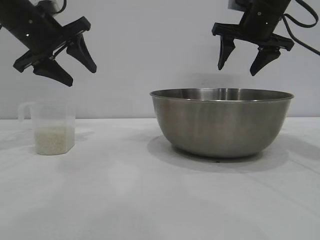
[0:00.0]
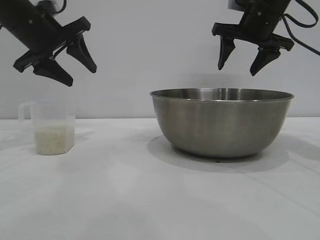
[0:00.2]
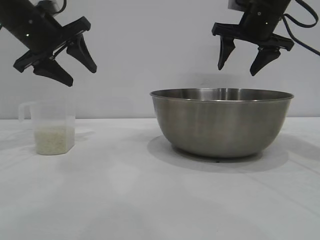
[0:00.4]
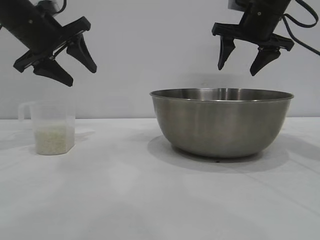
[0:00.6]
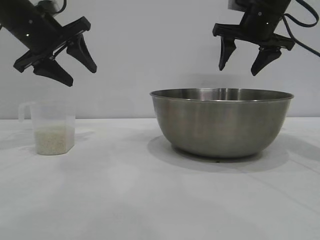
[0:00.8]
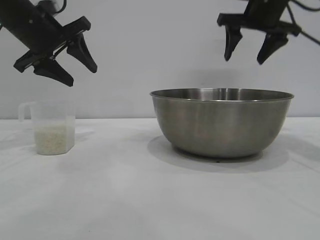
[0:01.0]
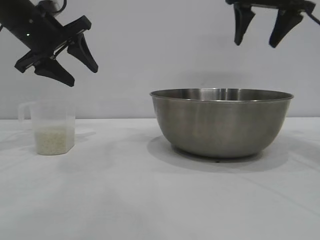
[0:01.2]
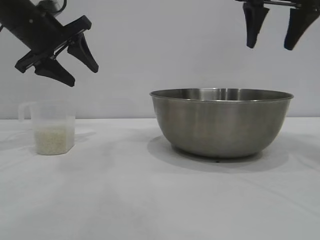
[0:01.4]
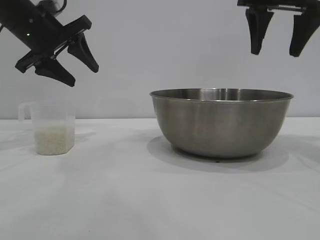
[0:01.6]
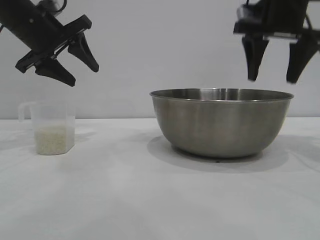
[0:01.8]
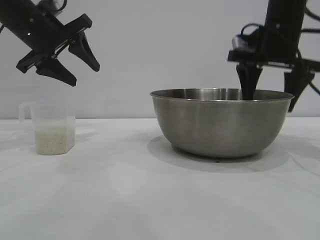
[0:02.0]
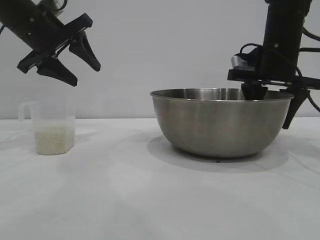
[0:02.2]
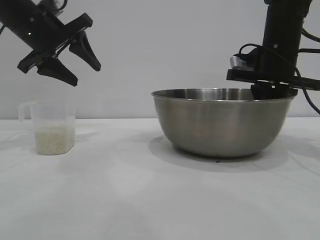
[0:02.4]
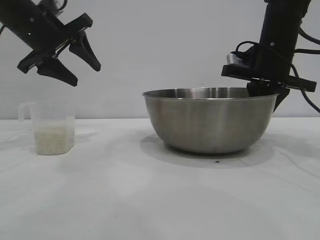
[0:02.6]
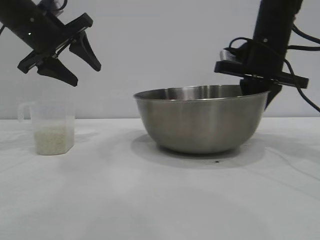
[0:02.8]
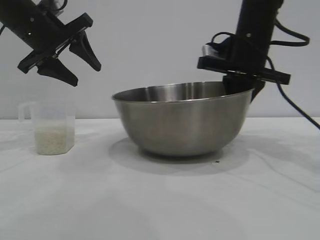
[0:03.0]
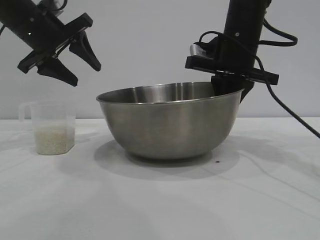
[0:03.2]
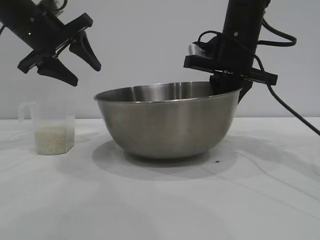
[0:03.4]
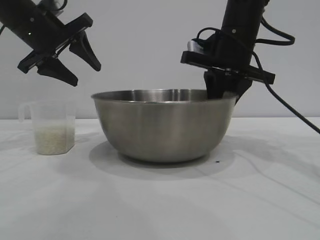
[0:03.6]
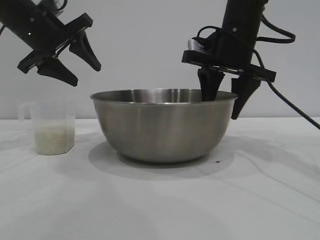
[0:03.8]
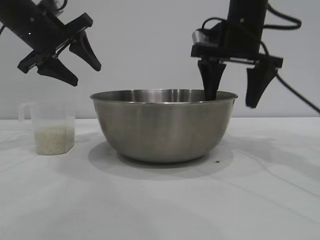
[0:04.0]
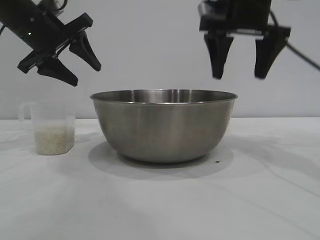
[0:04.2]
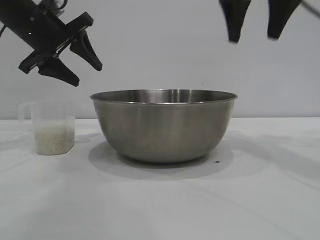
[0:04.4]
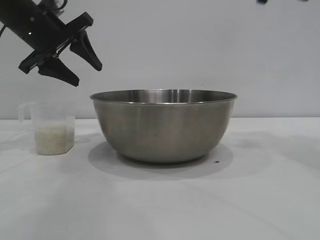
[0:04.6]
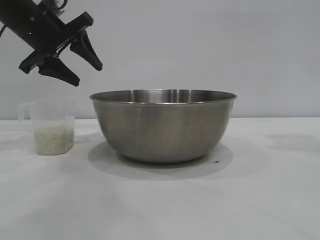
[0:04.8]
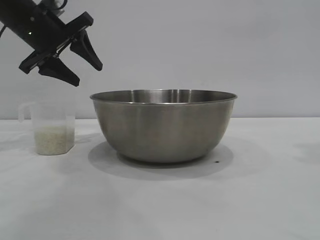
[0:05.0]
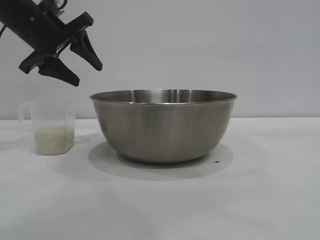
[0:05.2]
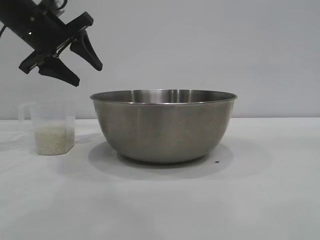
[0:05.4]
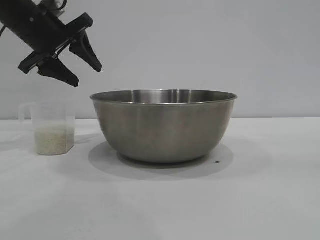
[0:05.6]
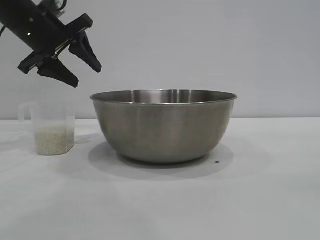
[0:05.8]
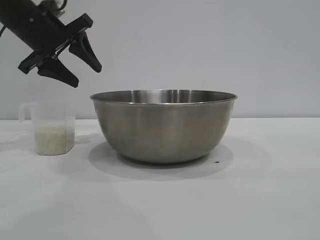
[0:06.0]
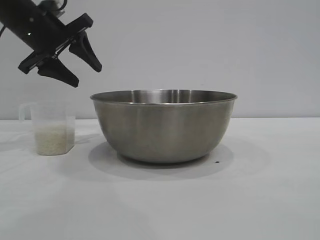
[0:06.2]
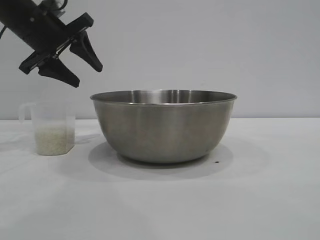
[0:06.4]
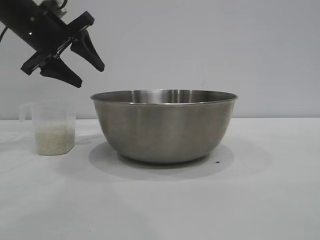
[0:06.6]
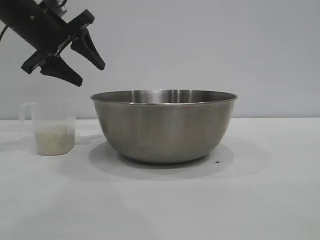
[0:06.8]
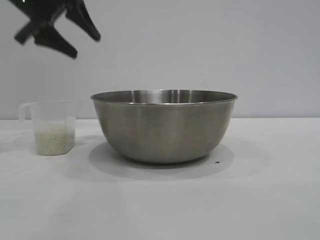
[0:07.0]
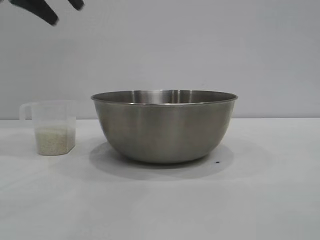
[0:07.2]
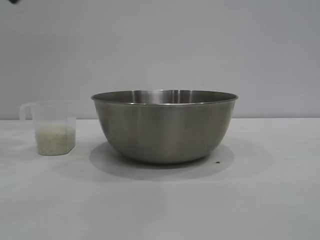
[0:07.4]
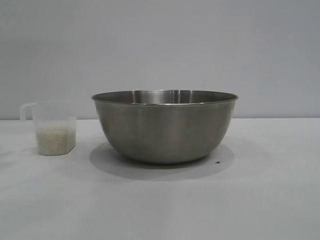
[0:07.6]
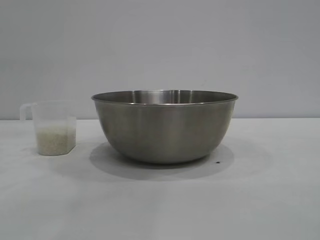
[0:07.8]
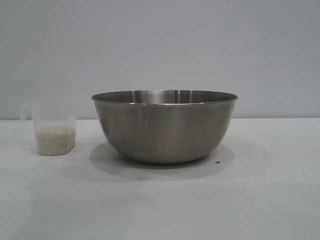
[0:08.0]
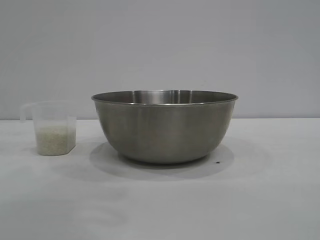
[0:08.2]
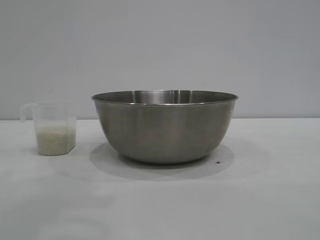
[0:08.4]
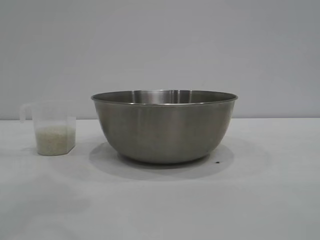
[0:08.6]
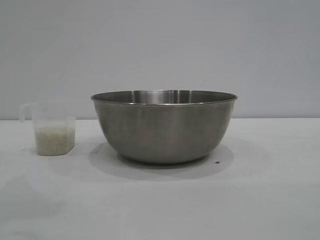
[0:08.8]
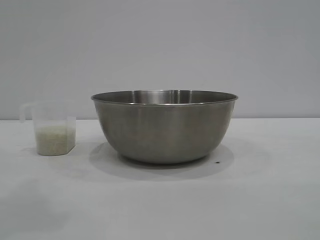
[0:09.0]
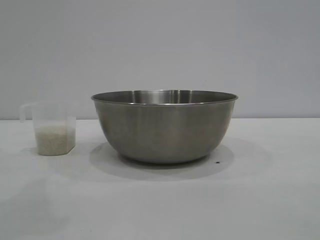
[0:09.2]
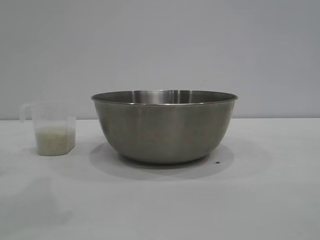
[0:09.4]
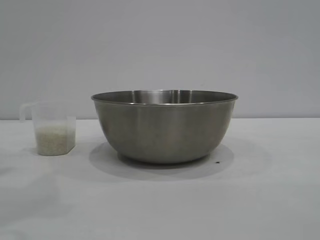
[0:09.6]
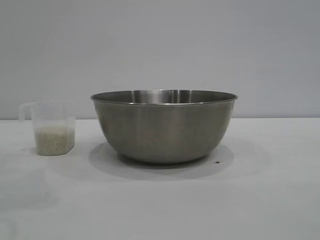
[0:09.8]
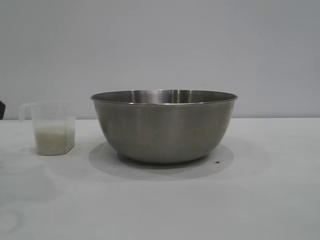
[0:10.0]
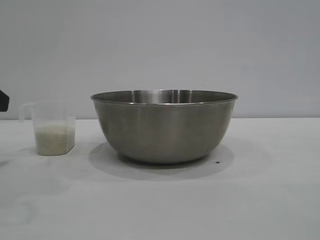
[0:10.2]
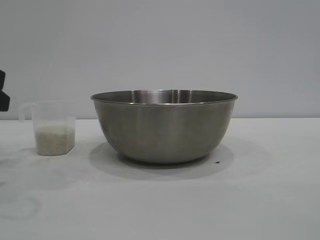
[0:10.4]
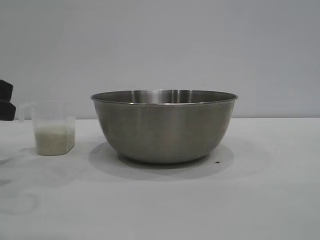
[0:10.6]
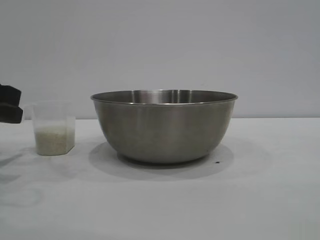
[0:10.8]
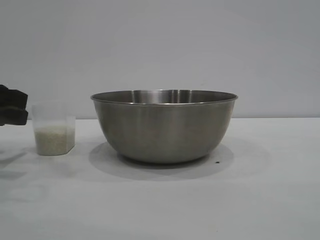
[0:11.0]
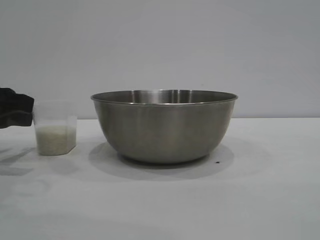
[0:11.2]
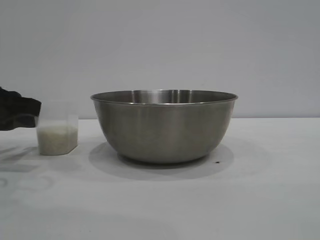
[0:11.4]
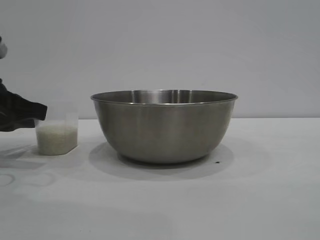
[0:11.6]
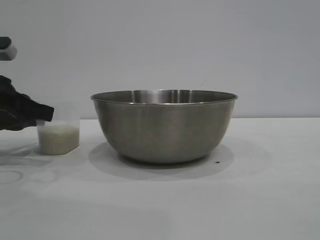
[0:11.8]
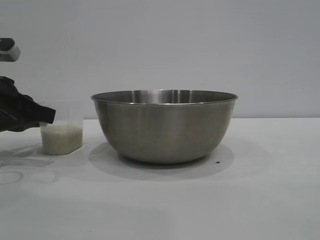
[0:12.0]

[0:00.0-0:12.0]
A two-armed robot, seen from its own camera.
Task of the whole recording: the right gripper grasp the rice container and place it in the center of the table, the left gripper grasp the rice scoop and pour the rice into the rice container.
Step, 0:00.0 to 0:04.0: Move the bowl to the center of view with the right gripper.

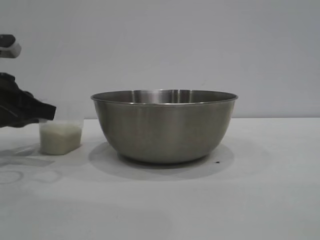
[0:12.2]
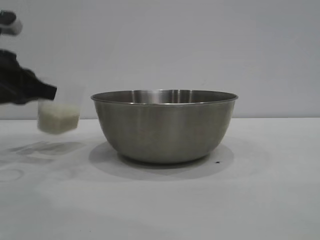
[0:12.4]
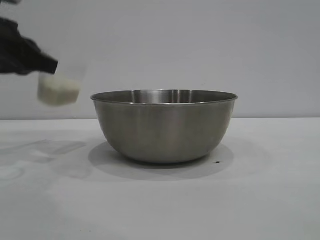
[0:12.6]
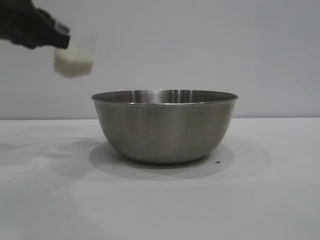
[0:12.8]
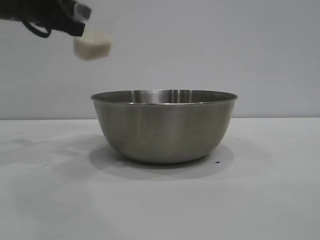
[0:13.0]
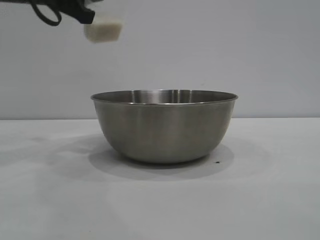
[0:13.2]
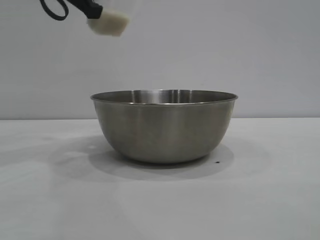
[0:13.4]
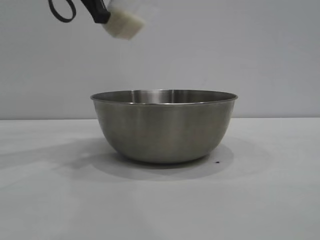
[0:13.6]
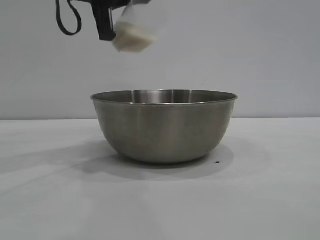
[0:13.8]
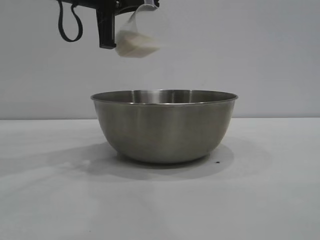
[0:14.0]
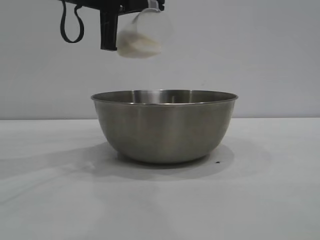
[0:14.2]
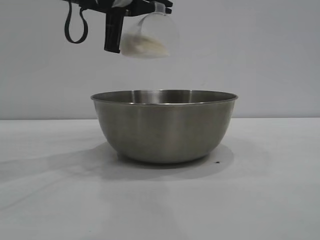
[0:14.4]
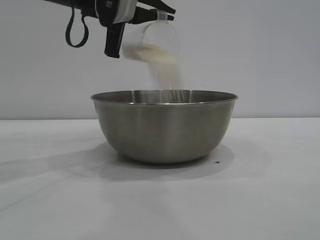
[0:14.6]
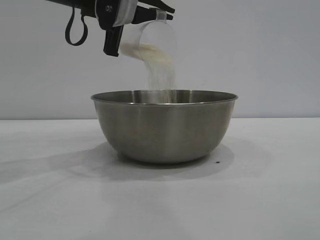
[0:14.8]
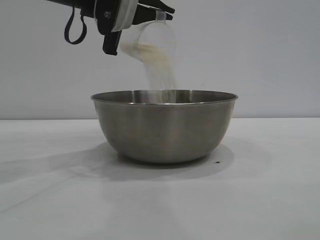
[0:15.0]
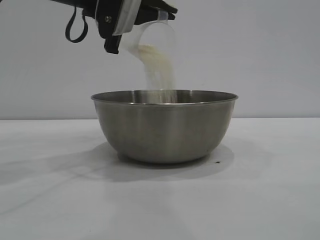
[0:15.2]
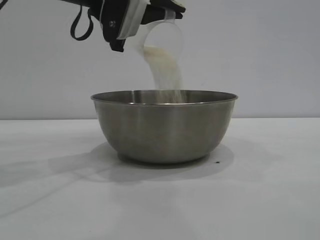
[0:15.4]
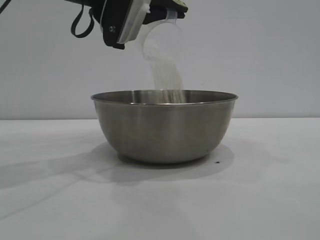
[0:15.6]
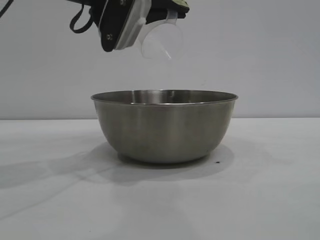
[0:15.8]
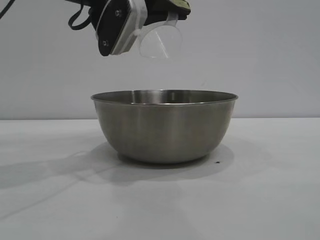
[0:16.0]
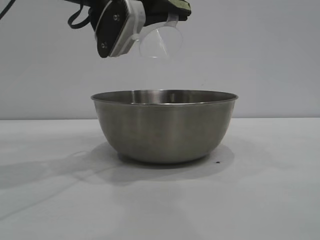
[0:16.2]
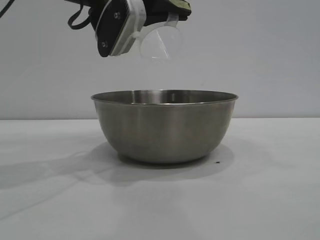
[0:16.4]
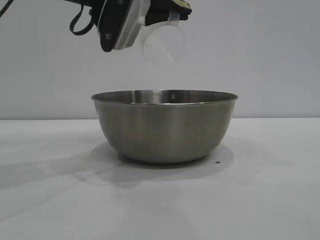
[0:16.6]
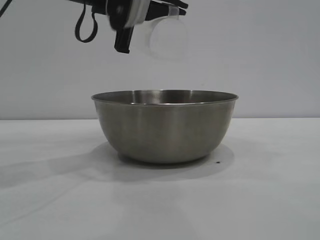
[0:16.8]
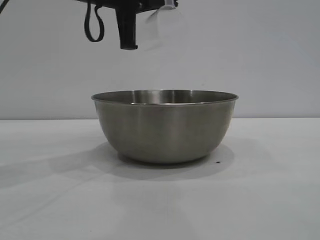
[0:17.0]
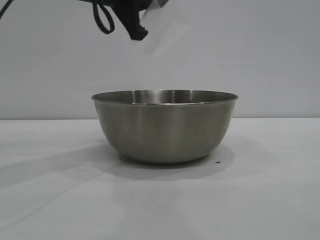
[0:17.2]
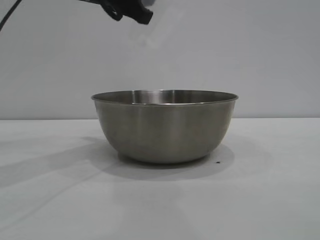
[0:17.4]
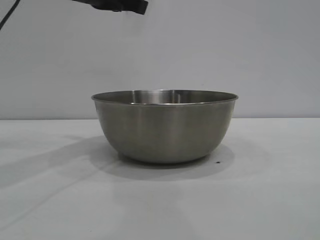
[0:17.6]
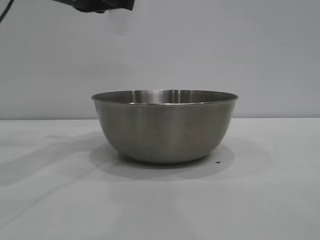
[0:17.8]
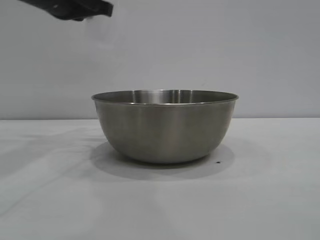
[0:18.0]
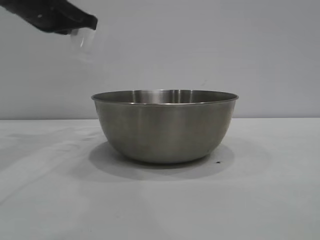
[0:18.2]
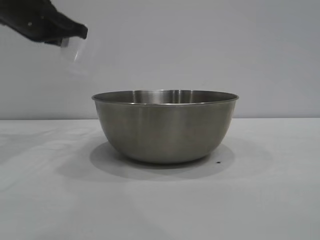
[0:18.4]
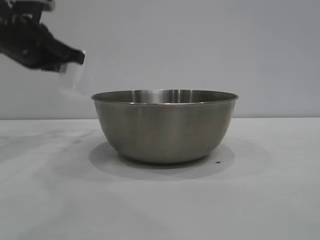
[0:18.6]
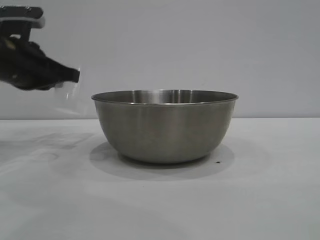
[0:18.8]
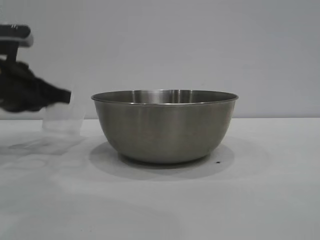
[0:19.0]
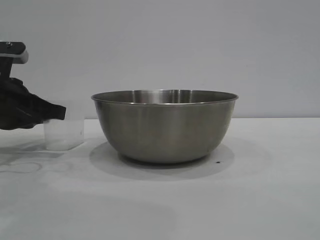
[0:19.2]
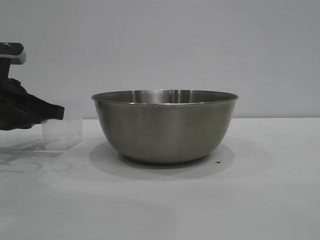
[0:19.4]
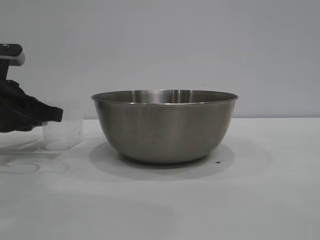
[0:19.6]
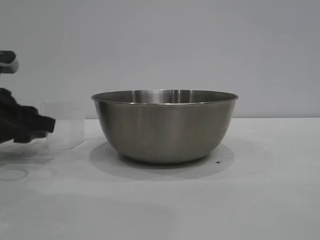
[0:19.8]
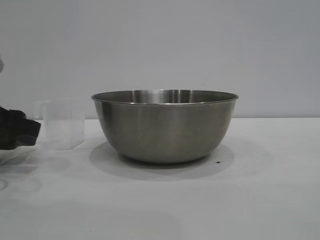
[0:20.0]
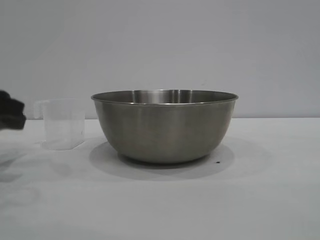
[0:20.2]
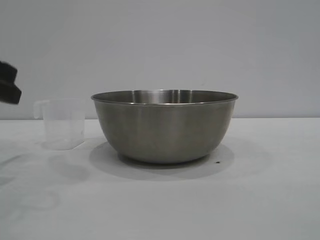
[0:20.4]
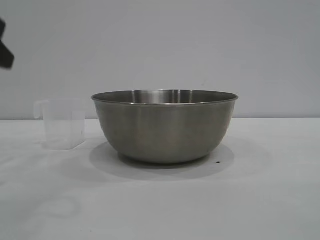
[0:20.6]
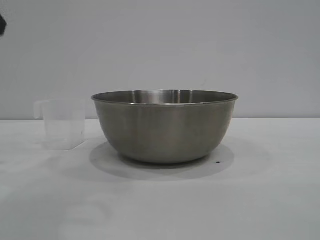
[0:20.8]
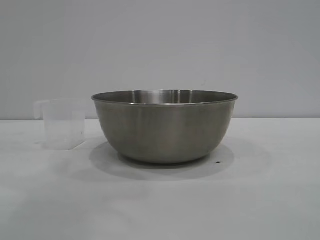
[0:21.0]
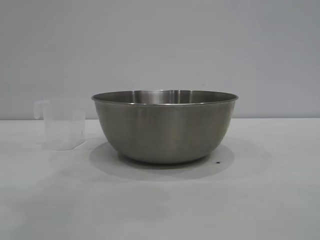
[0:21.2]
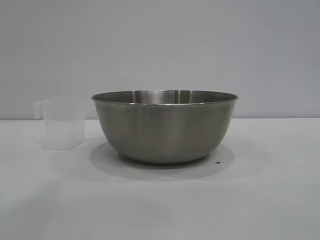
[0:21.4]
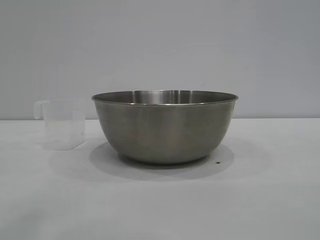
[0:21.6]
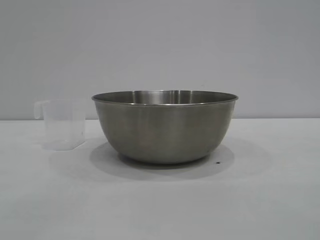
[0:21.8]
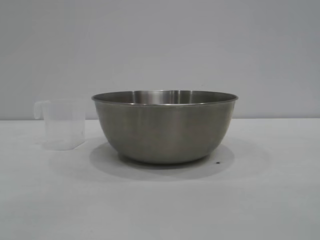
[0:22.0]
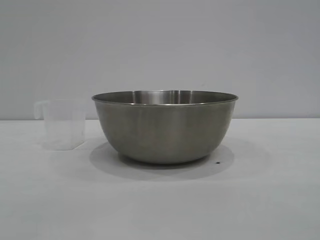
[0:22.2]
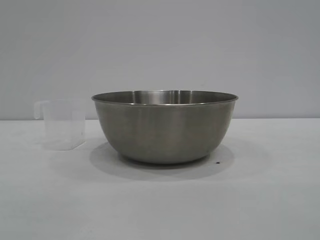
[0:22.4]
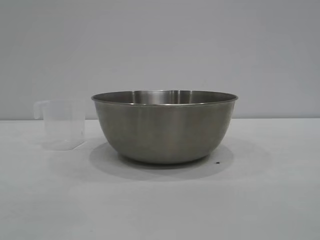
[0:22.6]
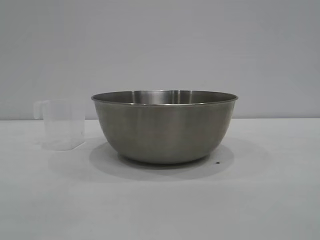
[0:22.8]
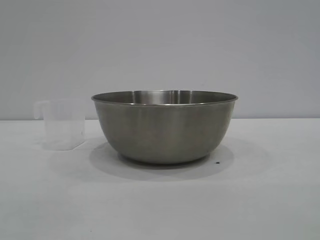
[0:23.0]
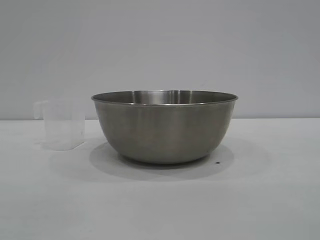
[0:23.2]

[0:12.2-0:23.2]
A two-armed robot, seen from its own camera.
Task of the whole recording: the right gripper grasp the rice container and place it in the center of the table, the left gripper grasp the rice scoop and pour the rice into the rice container.
Step, 0:12.6 to 0:16.8: Pour the rice from the cup into the bowl with the left gripper.
Step, 0:17.0 to 0:20.0: Place the cup on the table with the left gripper.
